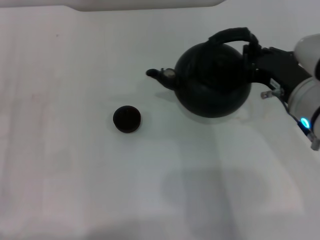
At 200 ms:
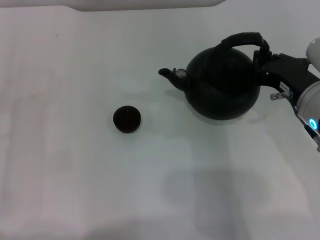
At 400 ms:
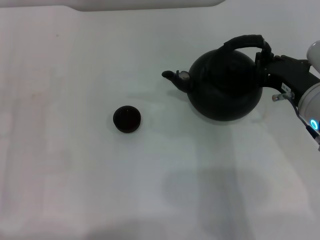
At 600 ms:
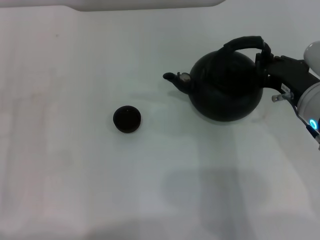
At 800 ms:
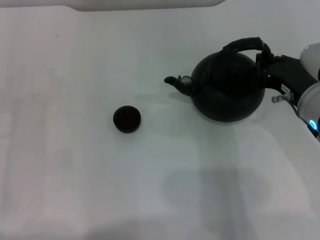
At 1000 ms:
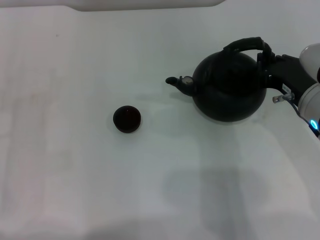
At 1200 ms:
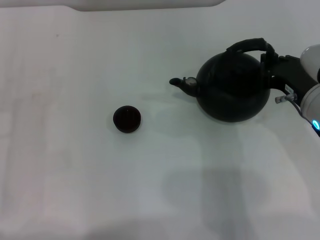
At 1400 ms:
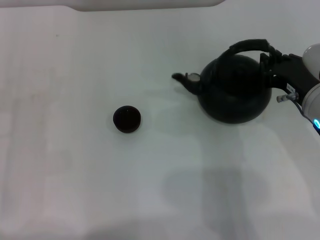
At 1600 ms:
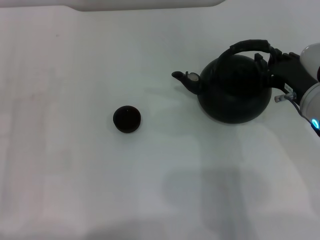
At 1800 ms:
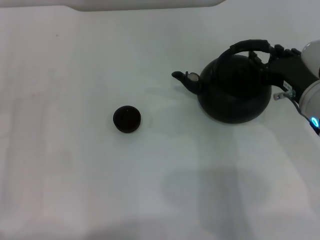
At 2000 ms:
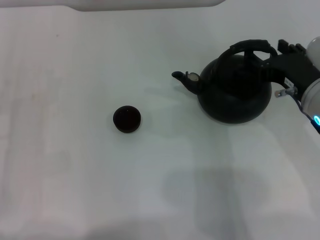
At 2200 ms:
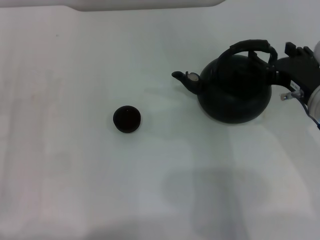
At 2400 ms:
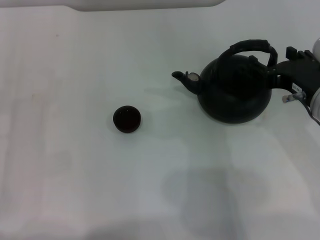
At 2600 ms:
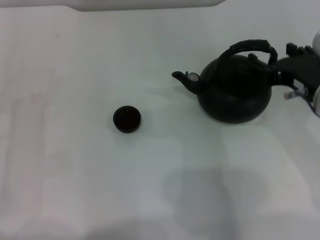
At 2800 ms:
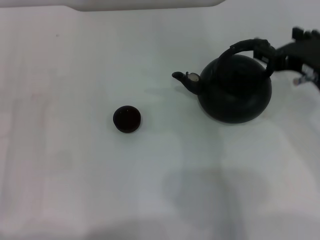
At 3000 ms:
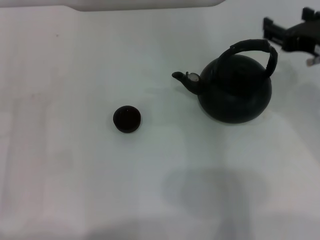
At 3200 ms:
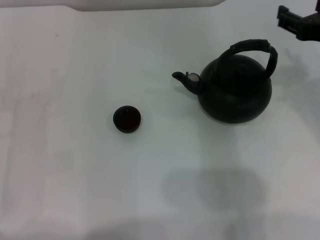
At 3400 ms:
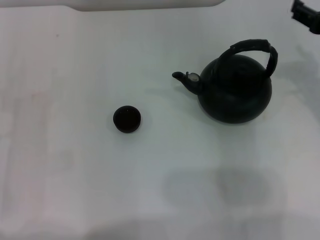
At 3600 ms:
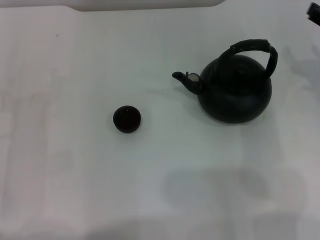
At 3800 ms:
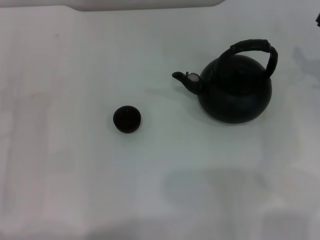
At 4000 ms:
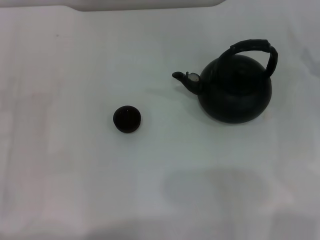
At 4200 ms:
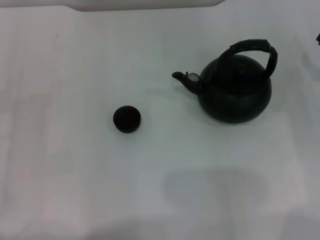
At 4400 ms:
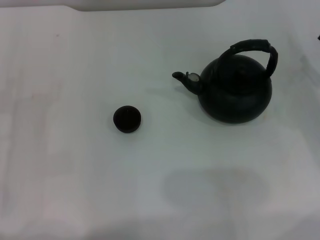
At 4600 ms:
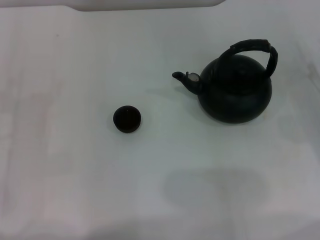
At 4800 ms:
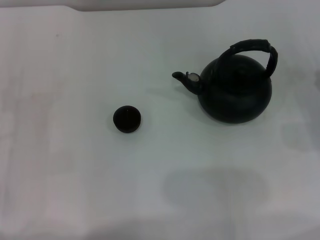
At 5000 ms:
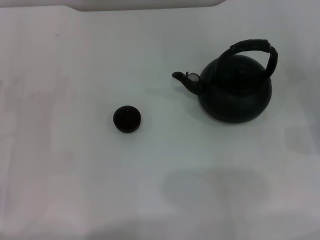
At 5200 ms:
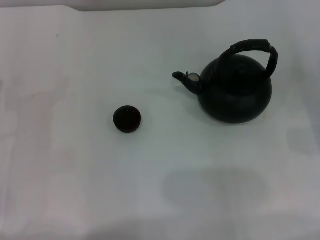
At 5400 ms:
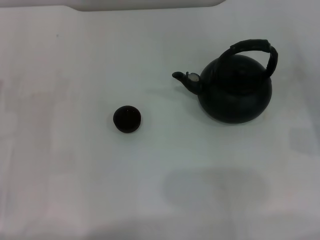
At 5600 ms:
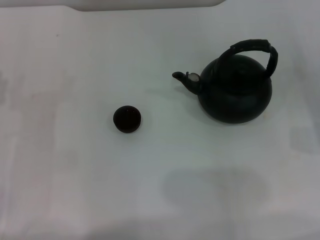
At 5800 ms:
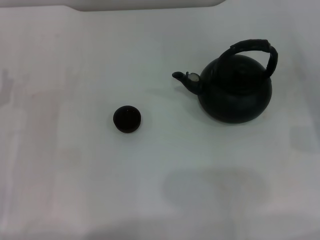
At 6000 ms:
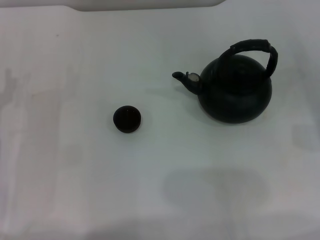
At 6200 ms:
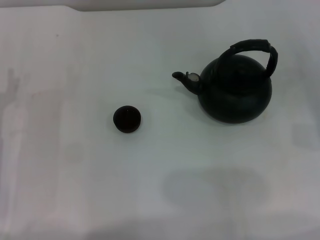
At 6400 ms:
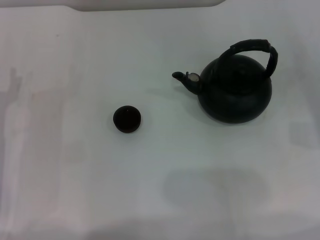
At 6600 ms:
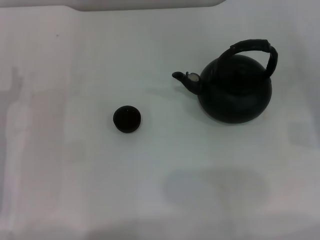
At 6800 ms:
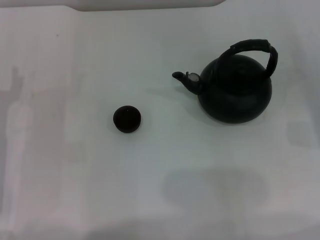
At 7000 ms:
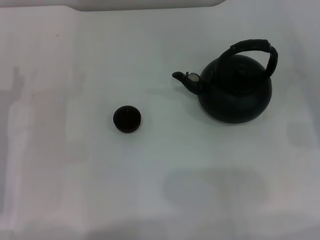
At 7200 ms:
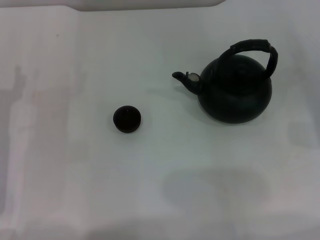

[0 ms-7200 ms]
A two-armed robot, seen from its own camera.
Task of the whole recording: Grasp the handle of the teapot with one hand and pour tea into the teacup.
Step, 0 ms to 2800 ms: Put down the teapot with the right gripper.
0 ms to 1400 ms: The grippers stay close to where they were, moving slightly.
1400 ms to 2800 ms: The right gripper shifts about 5 cm upward, and opens.
2800 ms to 4400 ms: The right gripper moves to the right and downward, about 20 cm.

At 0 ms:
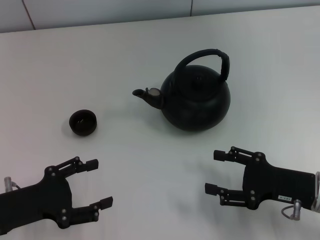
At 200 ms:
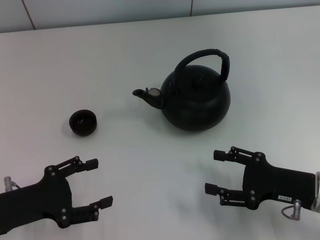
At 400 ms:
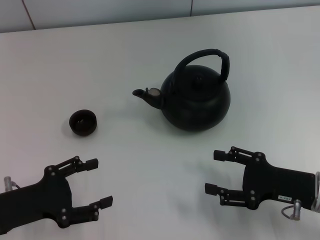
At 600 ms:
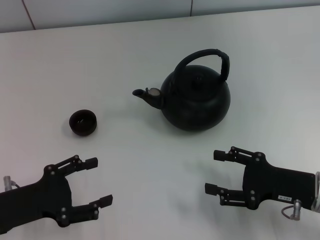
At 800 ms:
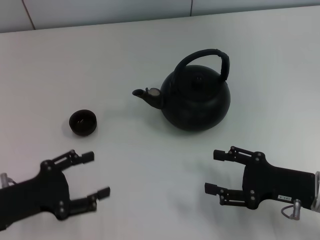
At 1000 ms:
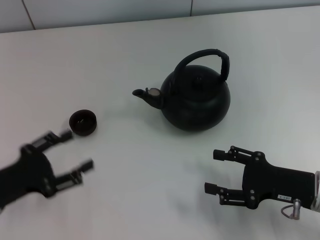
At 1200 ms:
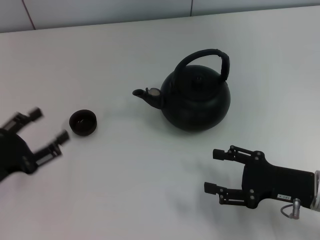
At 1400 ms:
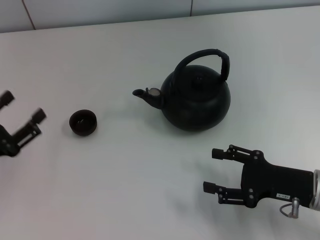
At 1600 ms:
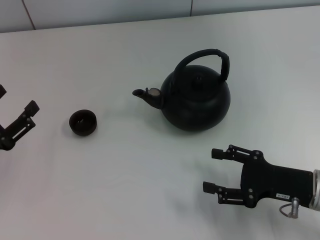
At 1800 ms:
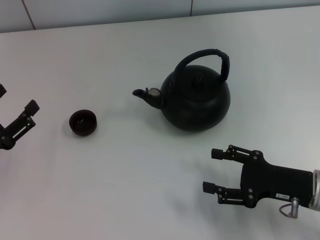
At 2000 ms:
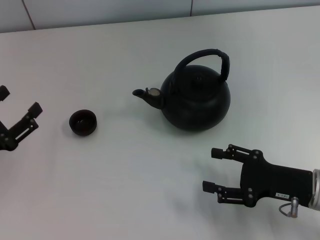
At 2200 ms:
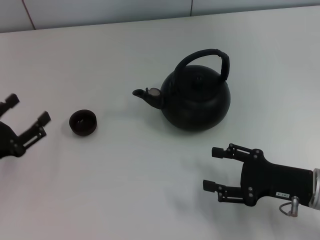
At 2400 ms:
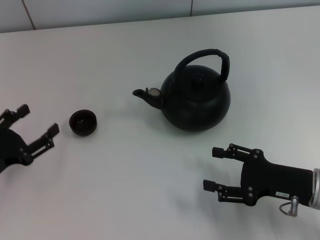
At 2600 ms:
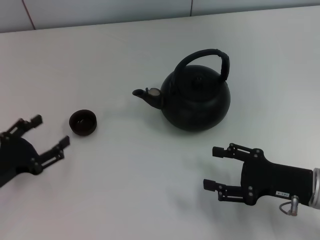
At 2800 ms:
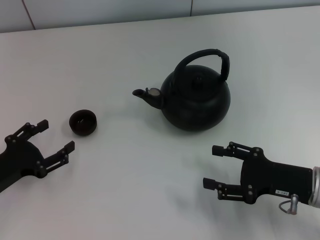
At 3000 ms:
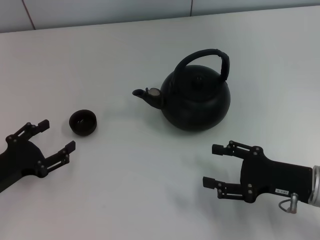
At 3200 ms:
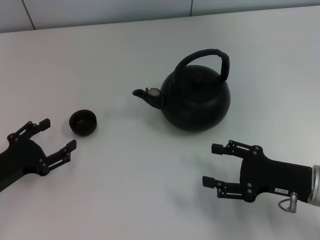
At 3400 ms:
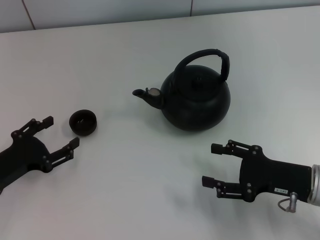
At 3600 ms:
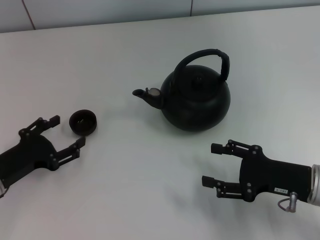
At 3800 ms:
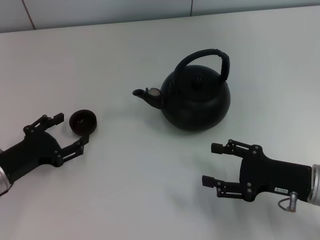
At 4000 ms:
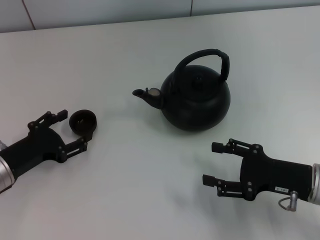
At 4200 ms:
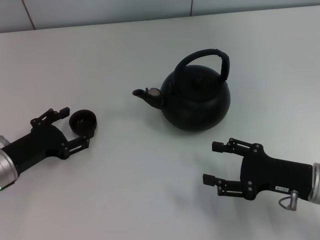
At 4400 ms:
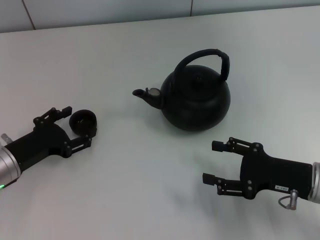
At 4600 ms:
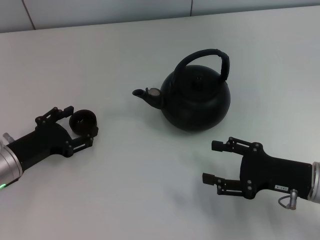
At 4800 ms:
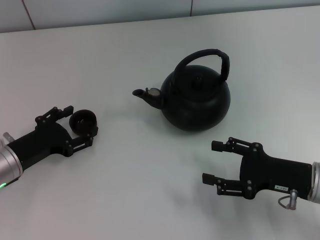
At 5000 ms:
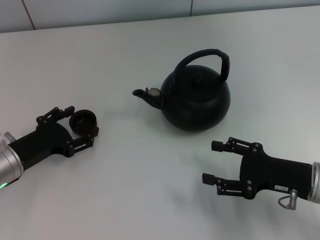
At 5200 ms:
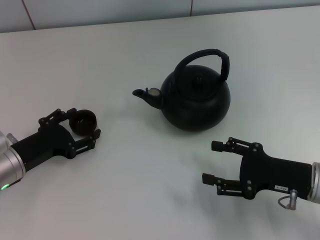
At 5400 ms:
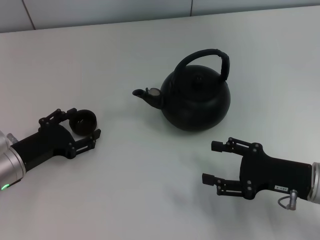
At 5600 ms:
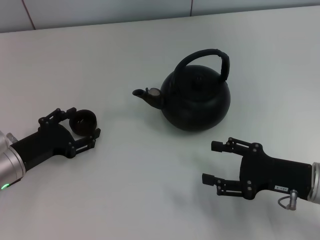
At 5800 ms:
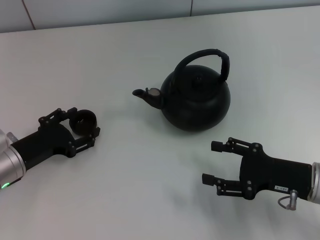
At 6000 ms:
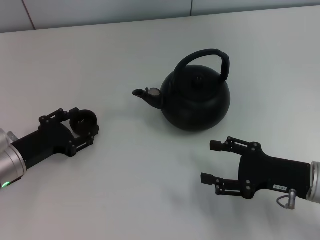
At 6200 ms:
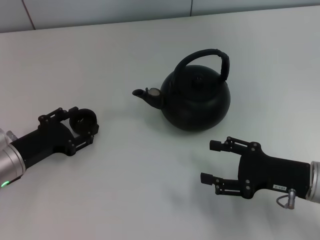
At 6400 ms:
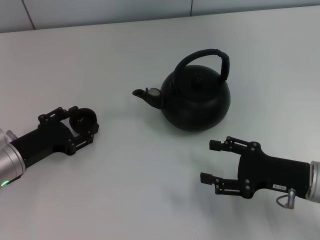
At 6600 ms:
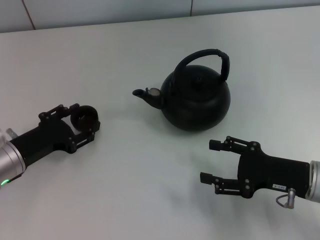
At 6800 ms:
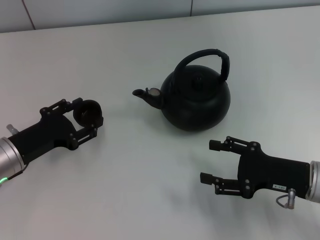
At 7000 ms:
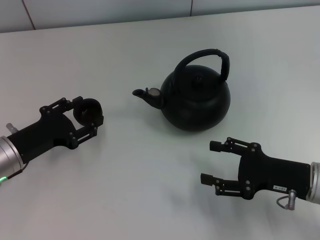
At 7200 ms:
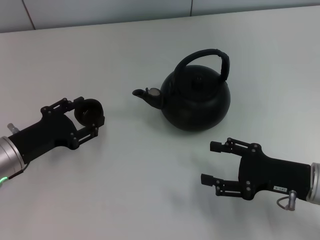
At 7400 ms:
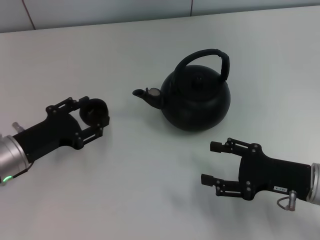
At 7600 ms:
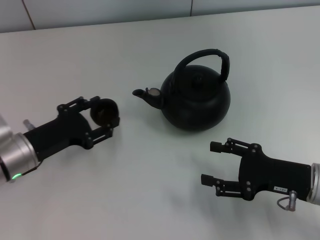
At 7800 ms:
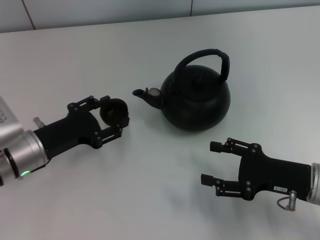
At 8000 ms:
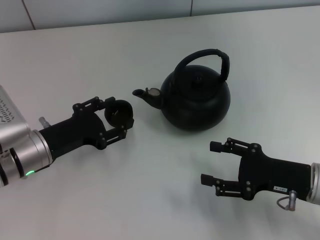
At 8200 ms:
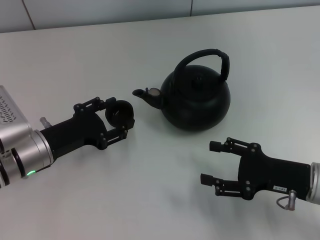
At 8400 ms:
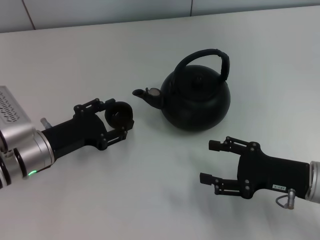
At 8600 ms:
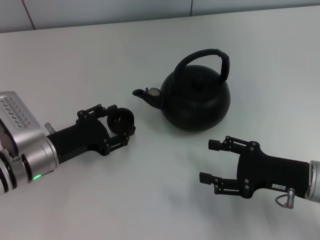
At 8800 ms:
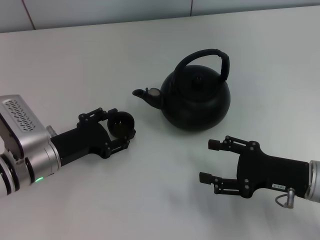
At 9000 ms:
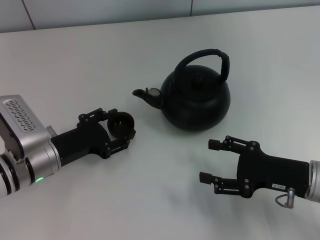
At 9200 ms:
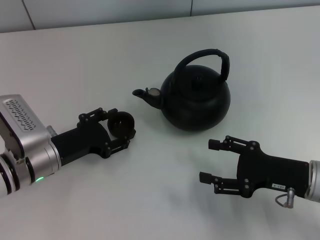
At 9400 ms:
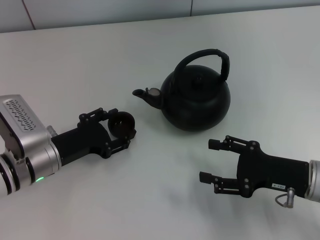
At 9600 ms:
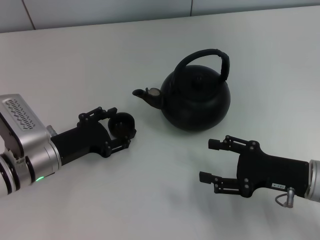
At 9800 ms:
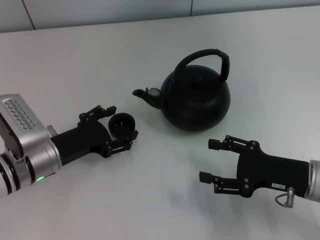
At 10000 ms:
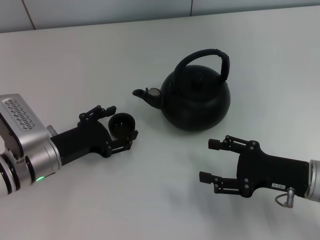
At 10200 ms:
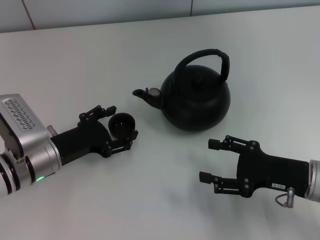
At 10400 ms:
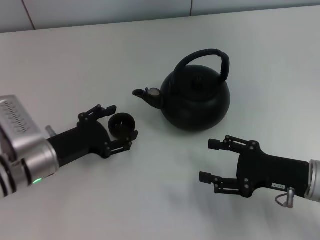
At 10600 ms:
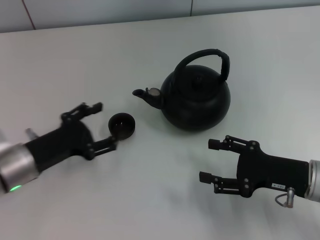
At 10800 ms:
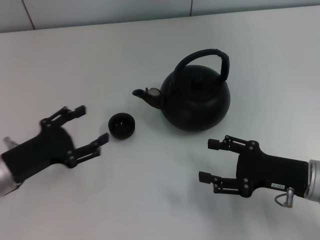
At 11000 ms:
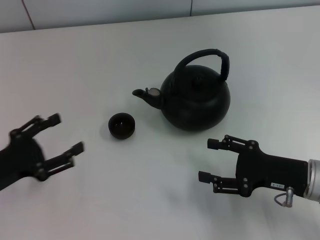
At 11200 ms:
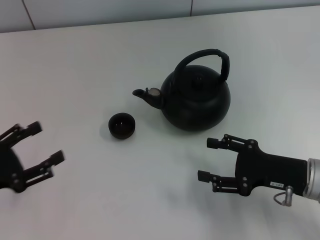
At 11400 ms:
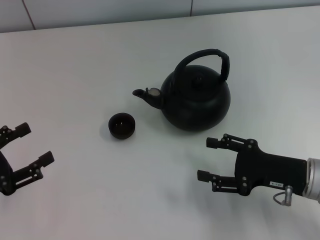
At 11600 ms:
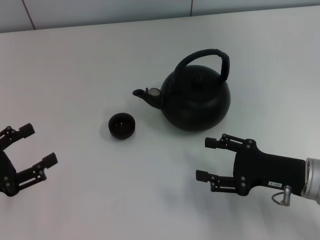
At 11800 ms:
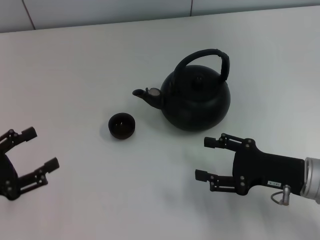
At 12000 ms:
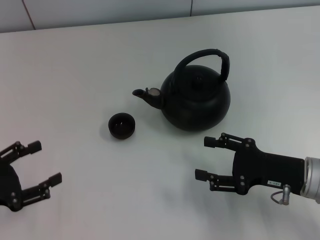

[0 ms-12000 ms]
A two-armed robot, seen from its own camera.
Task of the whole recording: Grasp the handle of the teapot with one hand and pour tea into the teacup.
Step, 0 ms to 7400 ms: Pick up the teacup with the left gripper.
Step, 7600 ms to 10800 ms: Place the teacup in the center of view with the left gripper.
3000 ms to 4400 ms: The left gripper changes place by some 5 cm.
4400 ms to 6000 ms: Neither gripper changes place.
6000 ms to 7600 ms: The left gripper closes.
7600 ms to 9000 ms: The grippers move only a little.
9000 ms to 10400 ms: The left gripper opens up.
10400 ms to 12000 ms: The left gripper goes some 15 cm to the left and backward.

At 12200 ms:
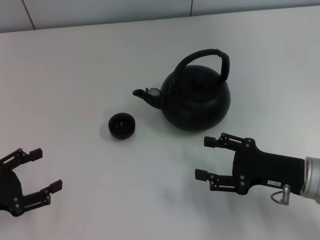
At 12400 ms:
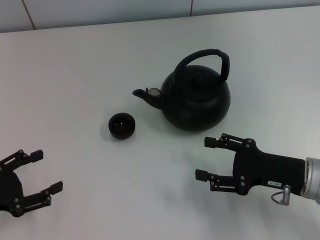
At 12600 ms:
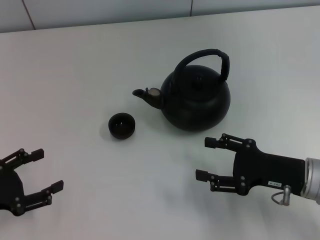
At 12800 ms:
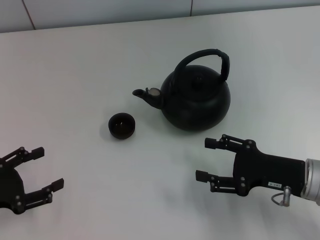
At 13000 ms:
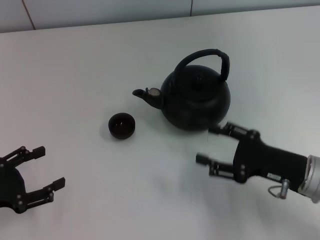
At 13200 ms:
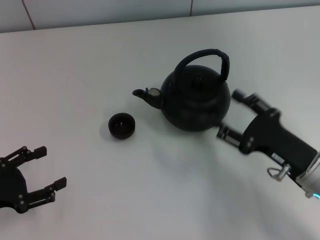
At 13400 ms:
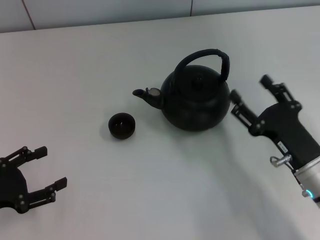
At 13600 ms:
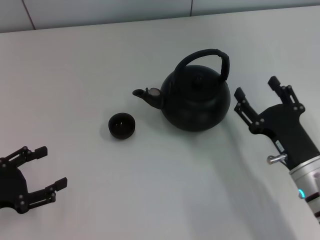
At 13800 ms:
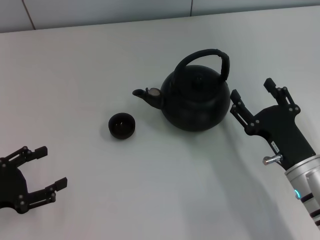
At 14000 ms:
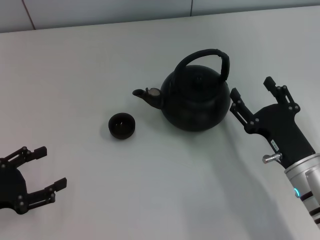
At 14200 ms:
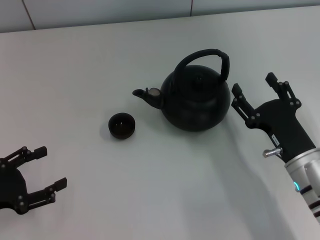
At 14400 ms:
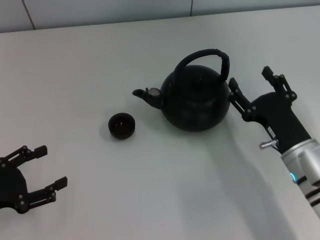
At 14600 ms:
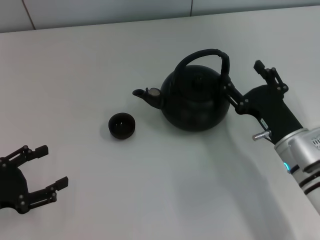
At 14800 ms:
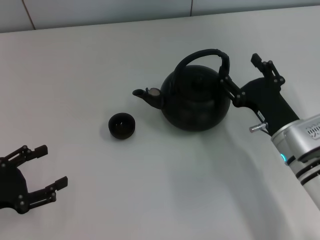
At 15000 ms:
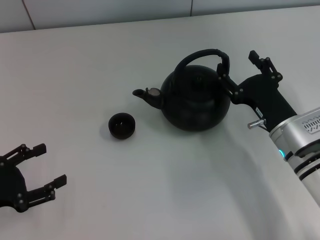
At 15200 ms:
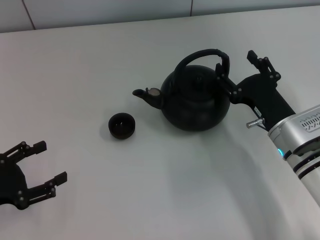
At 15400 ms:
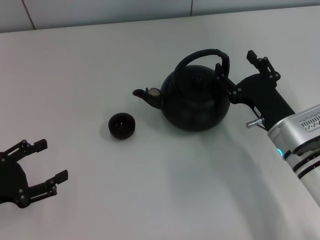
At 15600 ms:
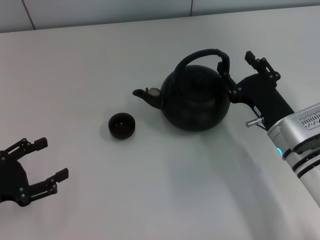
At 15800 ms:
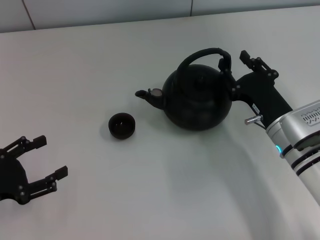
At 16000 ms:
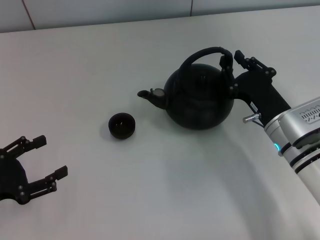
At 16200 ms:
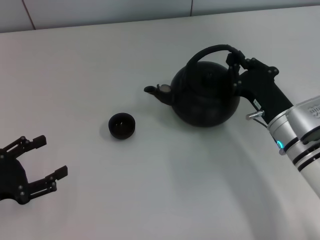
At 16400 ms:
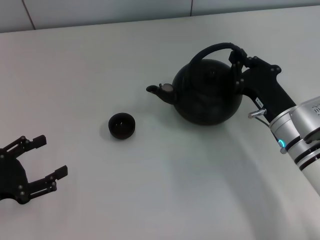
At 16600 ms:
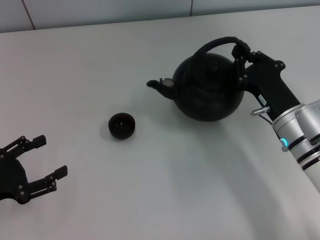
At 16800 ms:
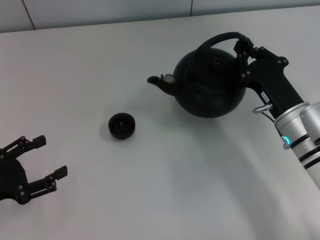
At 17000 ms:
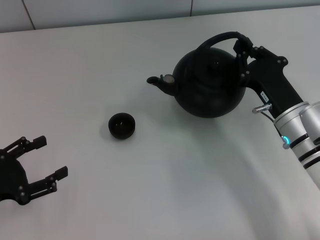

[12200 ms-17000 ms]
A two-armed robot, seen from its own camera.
Task of the whole recording: Grasp the handle of the teapot with one hand and pour tea into the teacup.
13800 ms to 15400 ms: The right gripper moves forward, about 5 cm.
15400 ms to 17000 ms: The right gripper closes its fingers.
